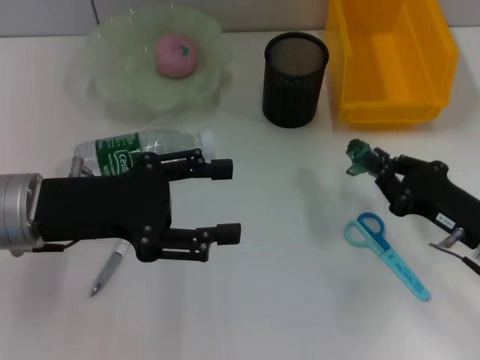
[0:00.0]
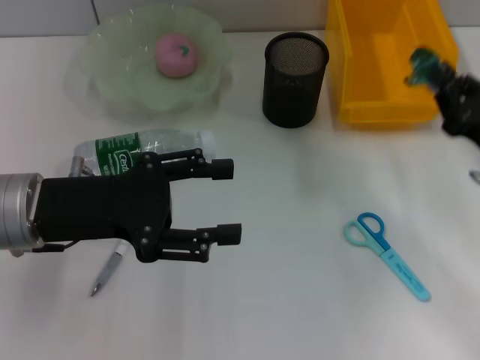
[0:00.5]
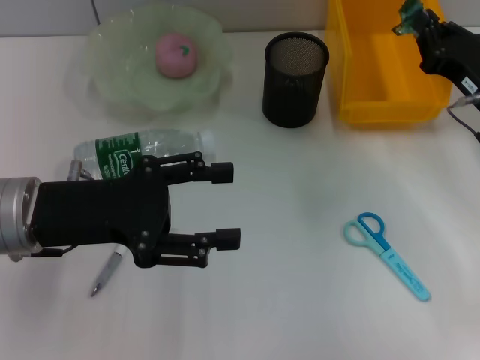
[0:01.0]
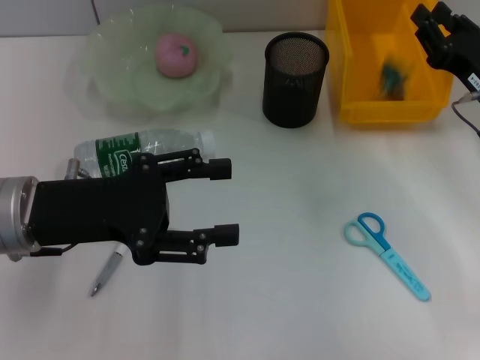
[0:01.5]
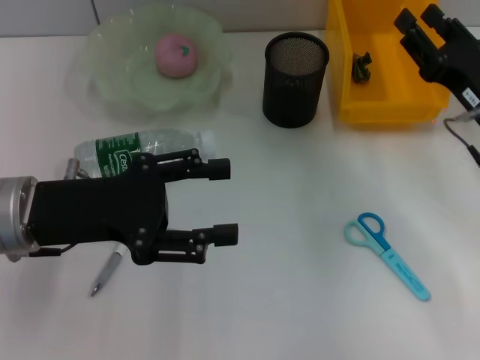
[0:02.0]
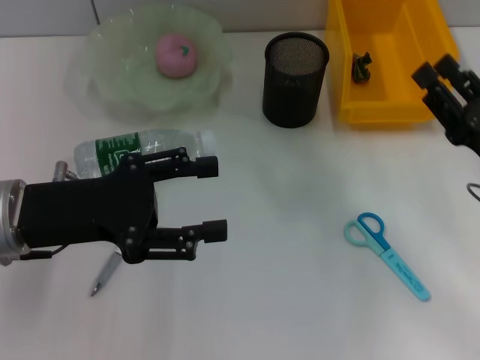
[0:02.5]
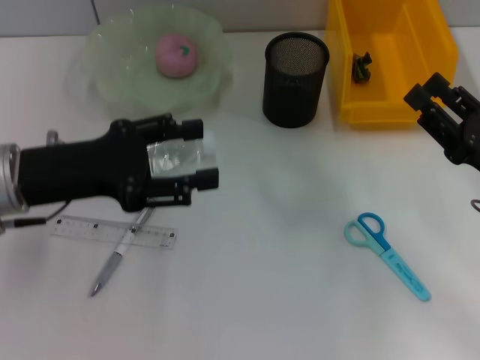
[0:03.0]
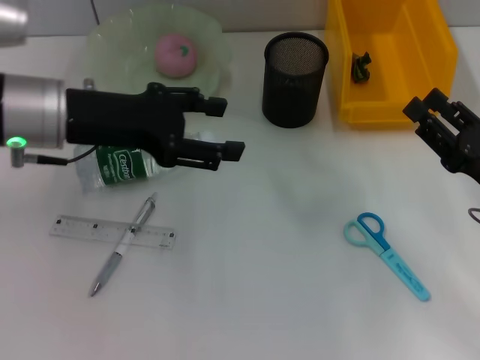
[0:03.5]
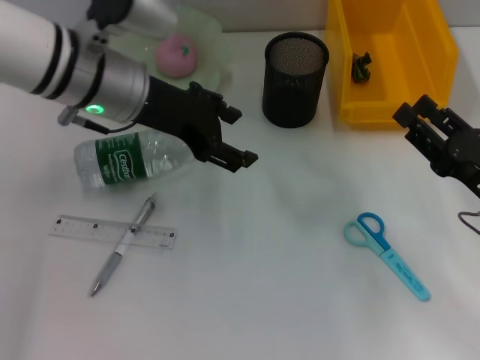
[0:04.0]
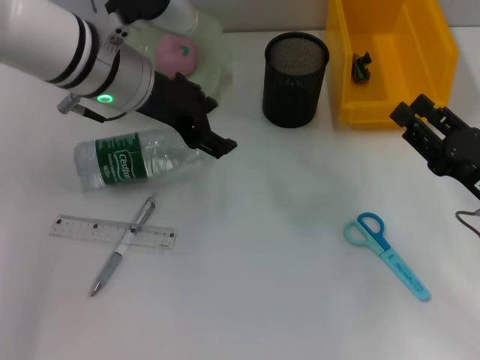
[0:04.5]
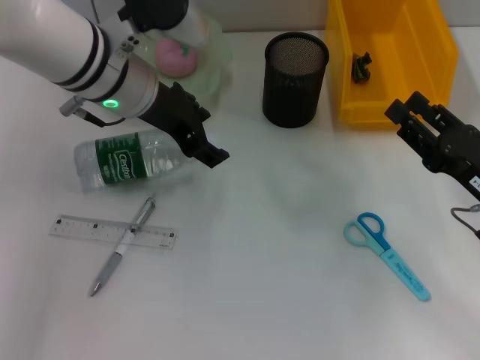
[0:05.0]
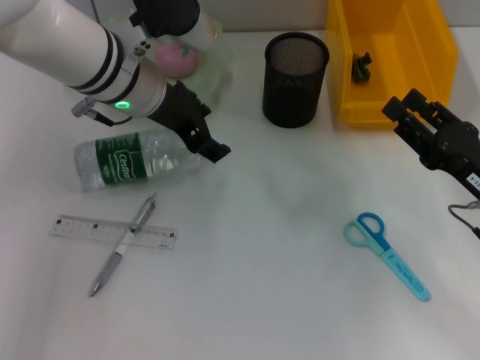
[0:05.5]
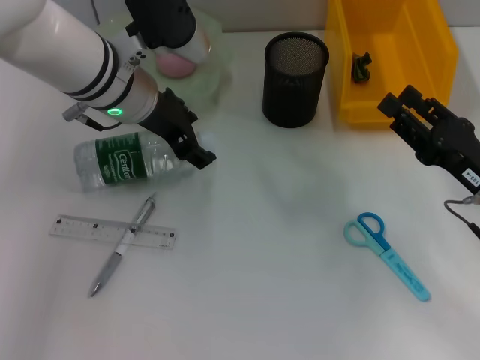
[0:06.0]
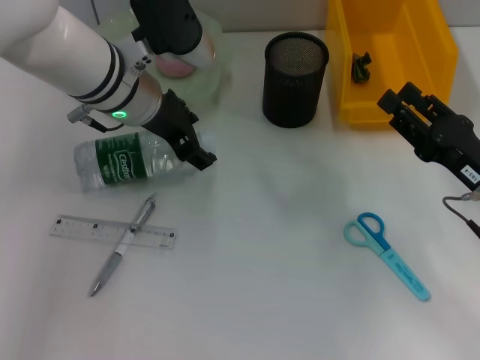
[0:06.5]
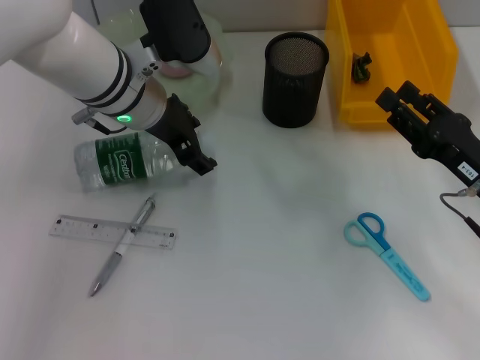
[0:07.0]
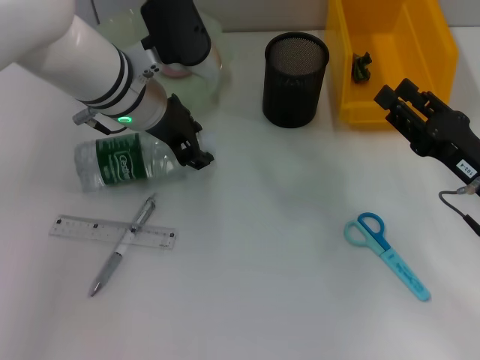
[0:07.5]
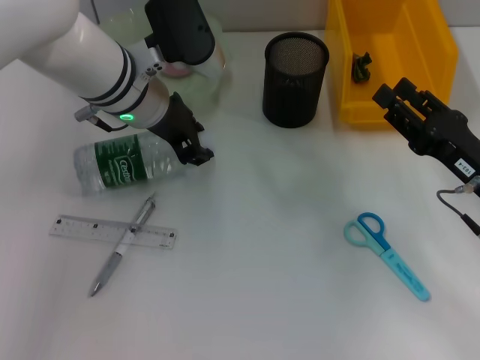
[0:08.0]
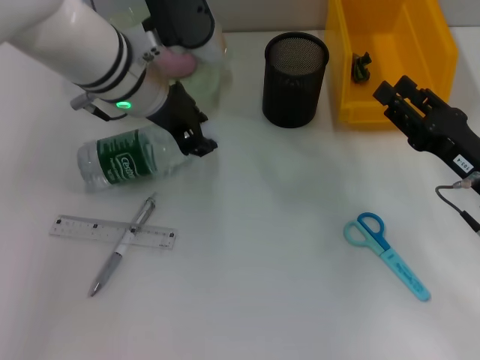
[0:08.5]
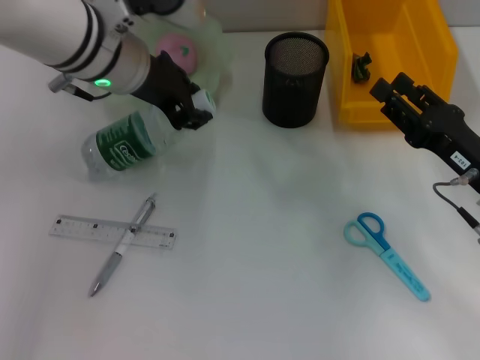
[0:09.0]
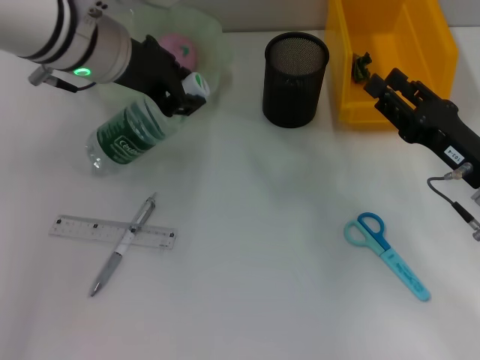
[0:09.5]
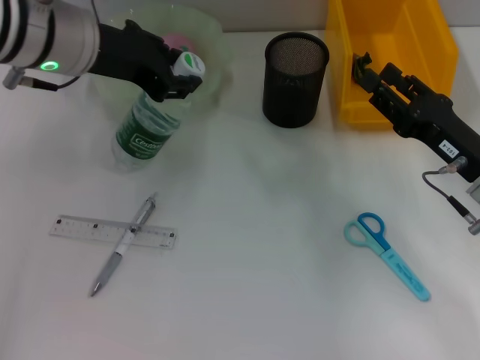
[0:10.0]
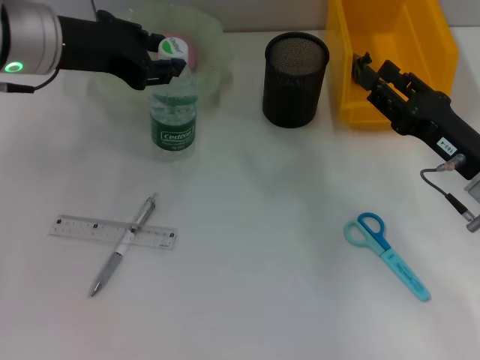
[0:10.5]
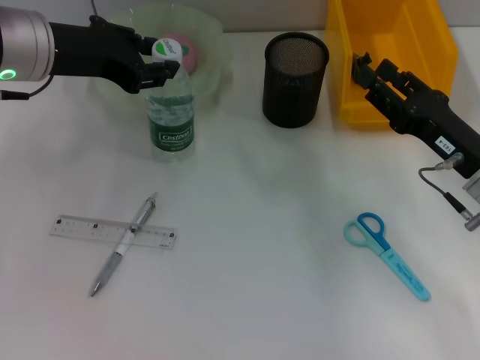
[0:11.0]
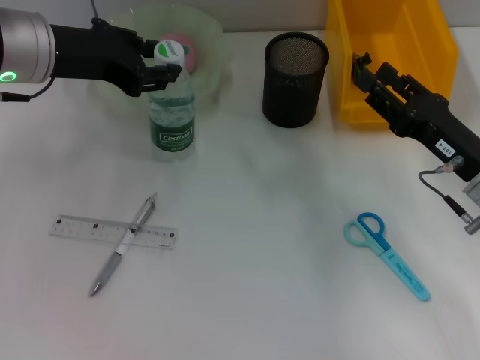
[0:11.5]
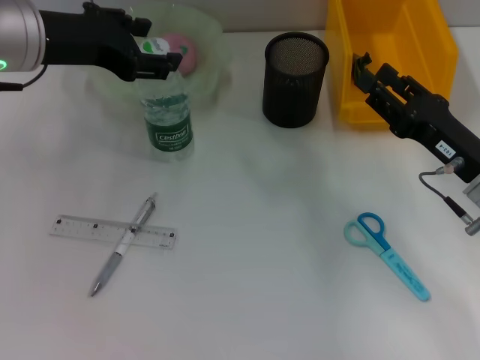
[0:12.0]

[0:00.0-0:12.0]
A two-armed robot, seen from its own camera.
Step, 0:00.0 to 0:01.5: Place the plastic into the trash can with the right hand.
Step, 0:02.0 to 0:08.0: Grab the water bottle with the left hand.
Step, 0:08.5 to 0:11.5: Place the water bottle on the table with the left hand.
0:00.0 to 0:02.0: The right gripper is displaced forward and upward by some 10 cm, and opens up.
0:02.0 to 0:04.0: The right gripper moves backward, some 5 cm. Meanwhile the left gripper moves forward, to the right and upward, roughly 15 cm.
0:06.0 to 0:08.0: The left gripper closes up.
0:08.0 to 0:10.0: The left gripper travels upward and to the left by about 10 cm.
0:10.0 to 0:12.0: The grippers move only a little.

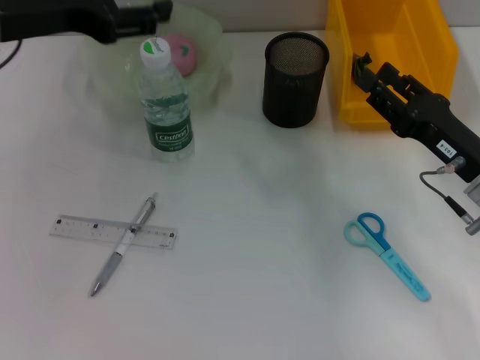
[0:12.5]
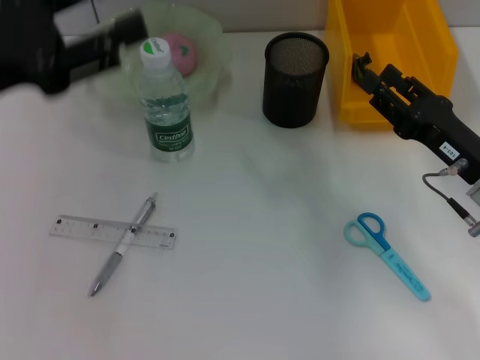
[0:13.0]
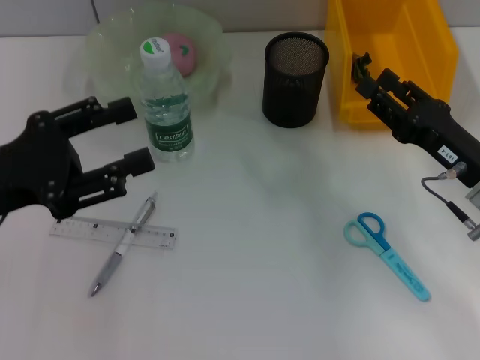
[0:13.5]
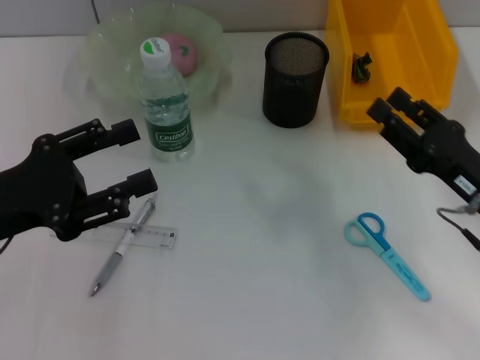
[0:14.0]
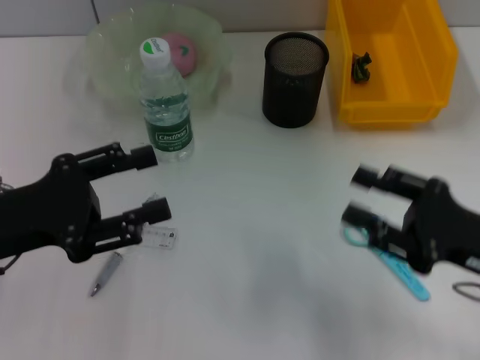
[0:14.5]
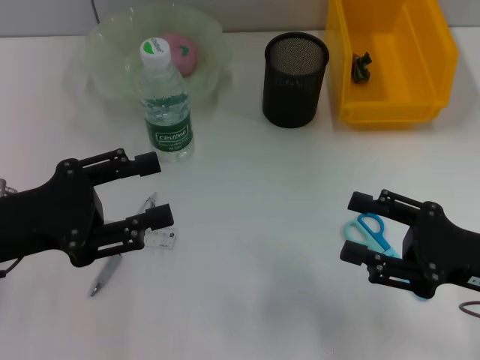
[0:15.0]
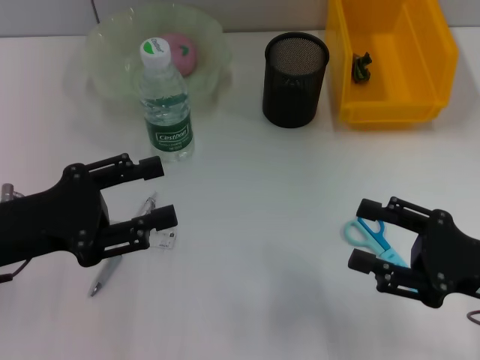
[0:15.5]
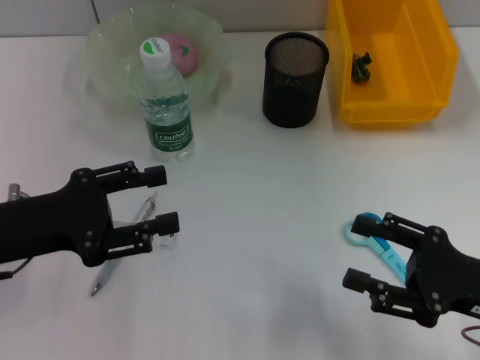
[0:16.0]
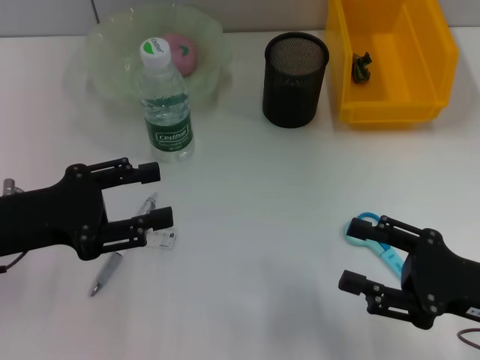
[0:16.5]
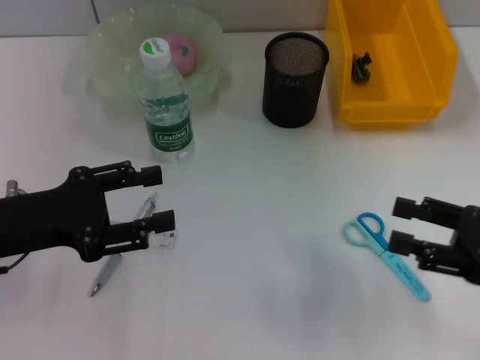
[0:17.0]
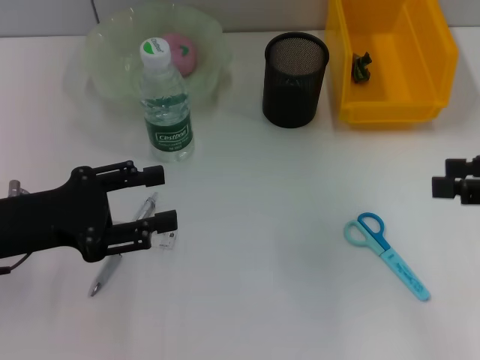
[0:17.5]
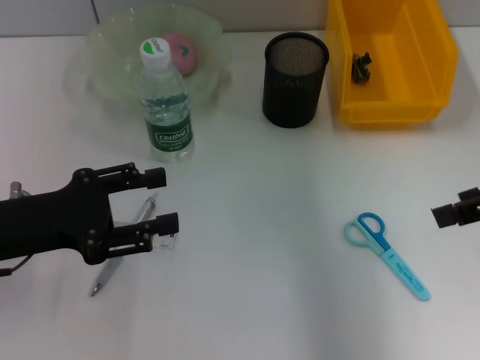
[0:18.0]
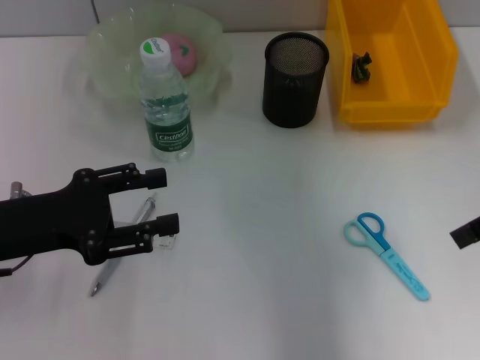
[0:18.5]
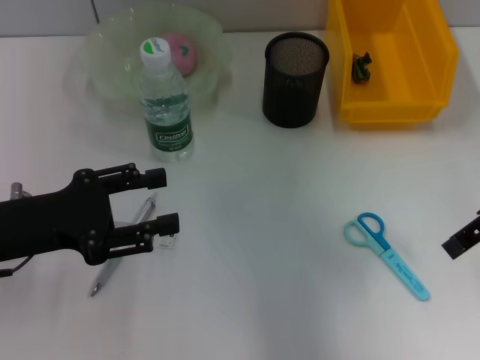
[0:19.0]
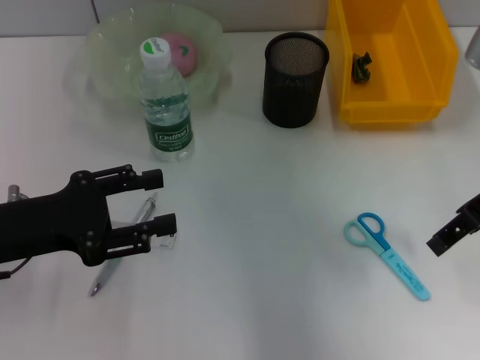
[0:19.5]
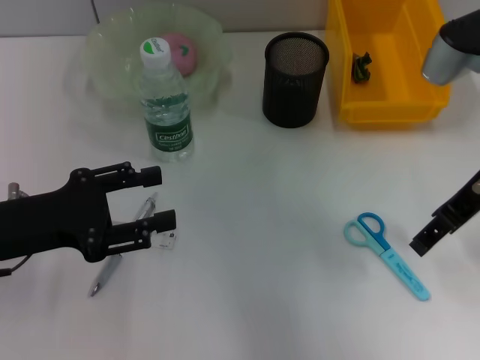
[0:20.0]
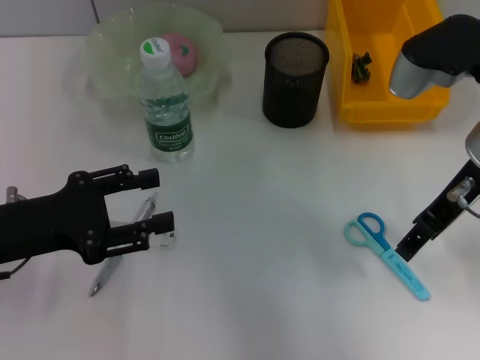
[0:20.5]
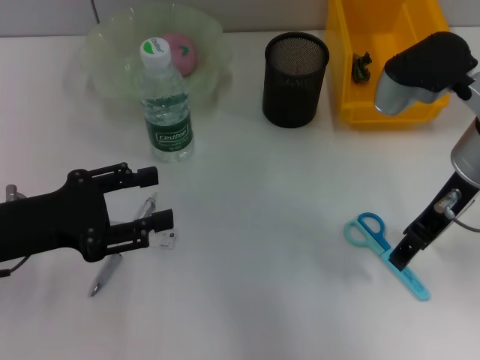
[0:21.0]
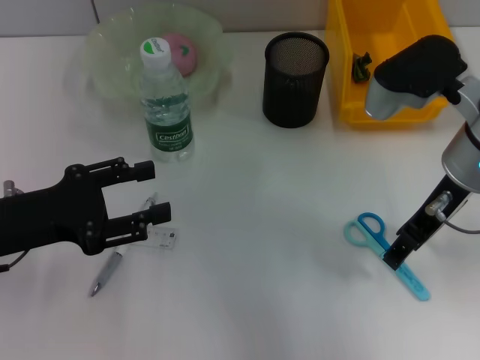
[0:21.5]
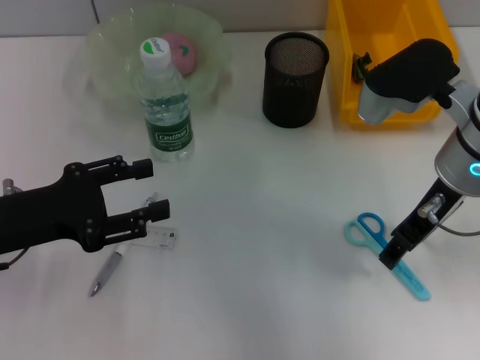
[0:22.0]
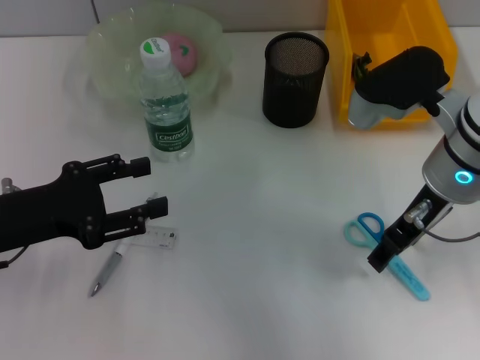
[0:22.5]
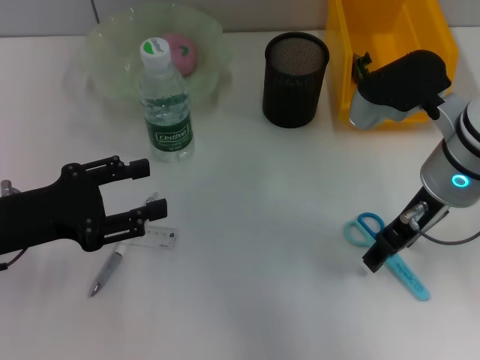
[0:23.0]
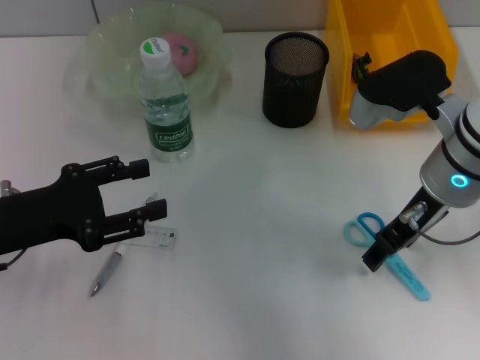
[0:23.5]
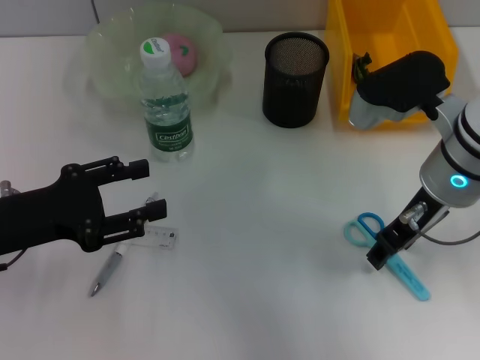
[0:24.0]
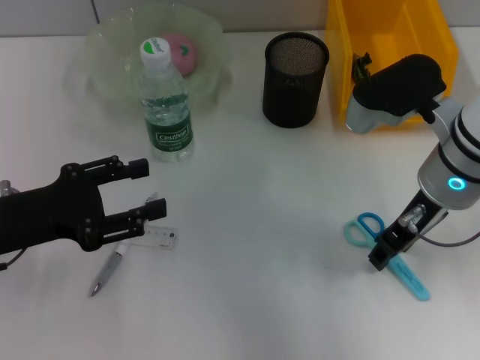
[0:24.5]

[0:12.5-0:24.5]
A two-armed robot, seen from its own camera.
0:12.5 to 0:14.5: The right gripper is displaced backward by approximately 5 cm, while the left gripper shifts some 15 cm downward and backward.
0:14.5 to 0:16.5: The grippers move only a little.
0:16.5 to 0:18.5: The right gripper shifts some 20 cm upward and forward.
0:18.5 to 0:20.5: The right gripper travels to the left by about 10 cm.
0:20.5 to 0:22.5: The grippers stay close to where they were, moving slightly.
0:22.5 to 0:24.5: Neither gripper changes place.

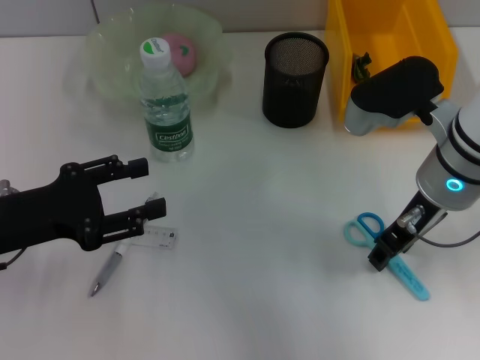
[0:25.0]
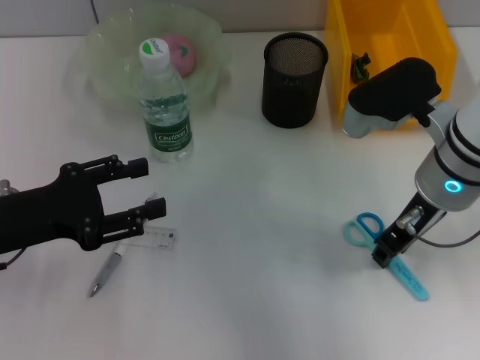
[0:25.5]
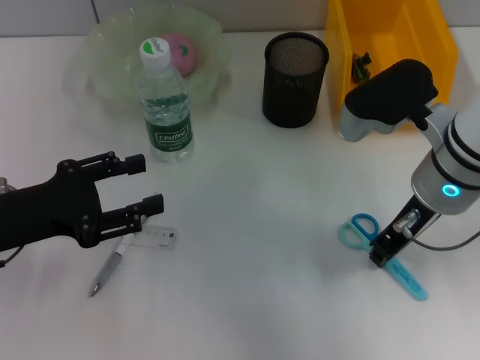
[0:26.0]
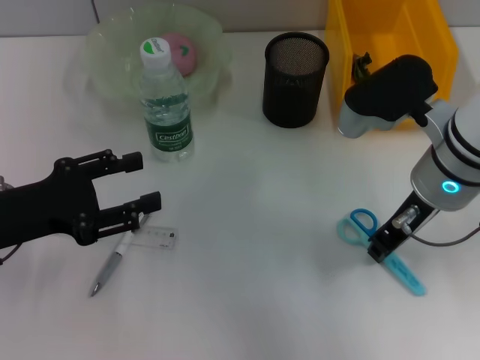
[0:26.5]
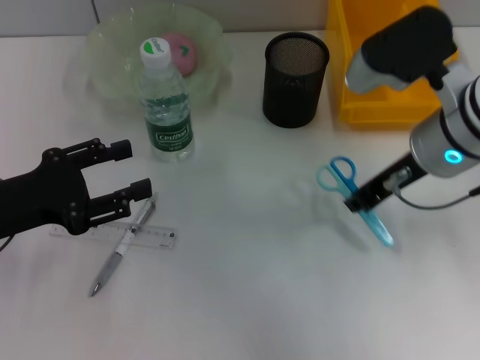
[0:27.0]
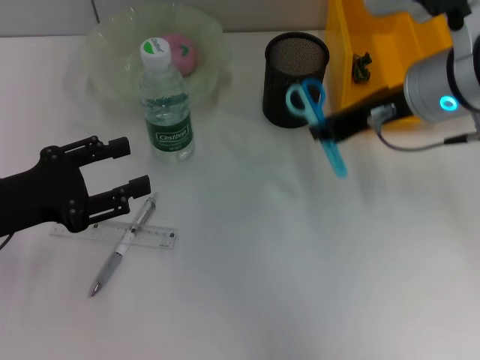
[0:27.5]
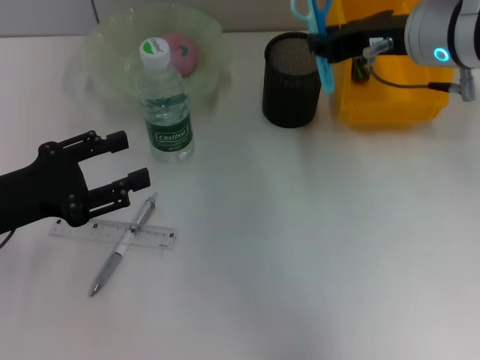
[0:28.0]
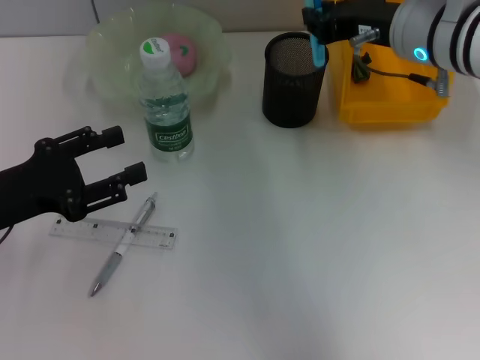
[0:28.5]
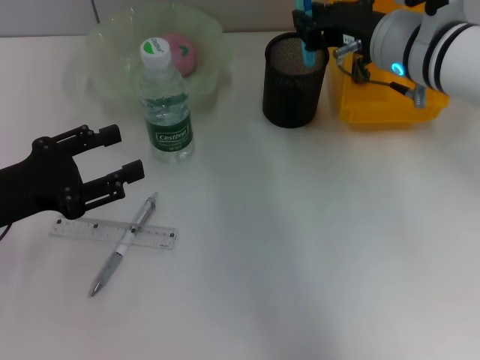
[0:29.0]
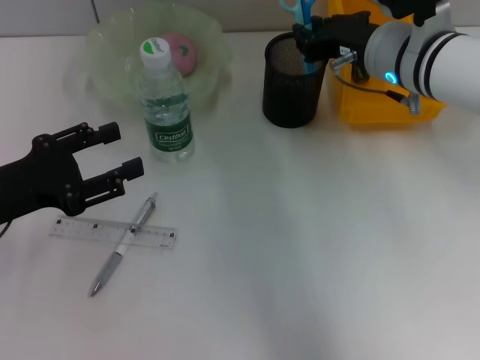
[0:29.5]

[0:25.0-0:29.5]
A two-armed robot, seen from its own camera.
0:25.0 to 0:27.0: The right gripper closes up.
0:27.0 to 0:29.5: The right gripper travels forward by about 5 cm.
